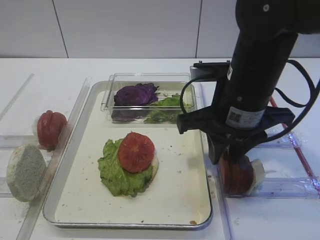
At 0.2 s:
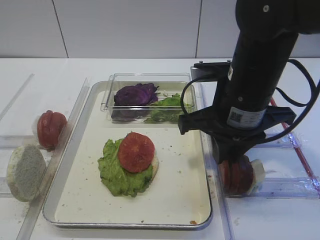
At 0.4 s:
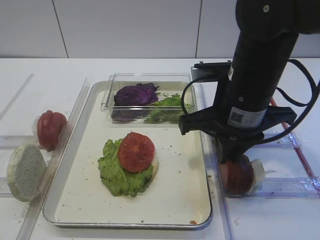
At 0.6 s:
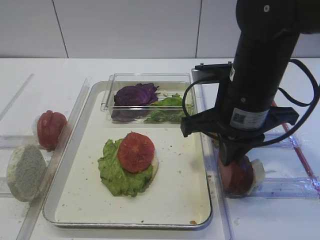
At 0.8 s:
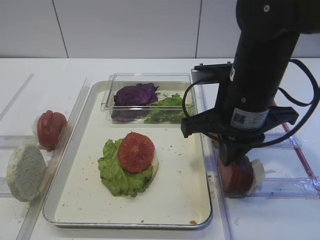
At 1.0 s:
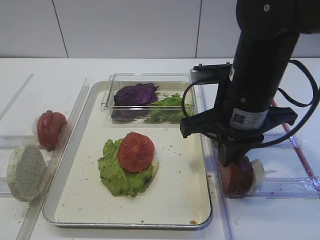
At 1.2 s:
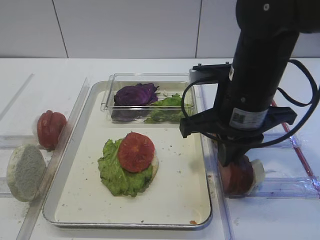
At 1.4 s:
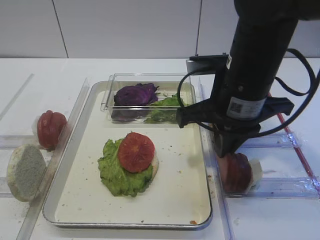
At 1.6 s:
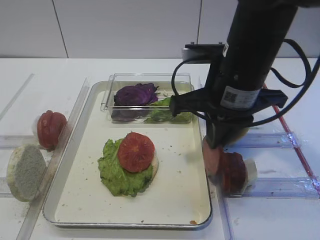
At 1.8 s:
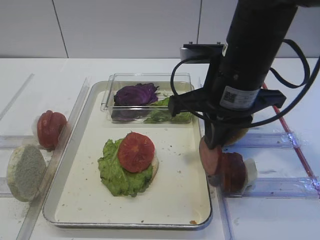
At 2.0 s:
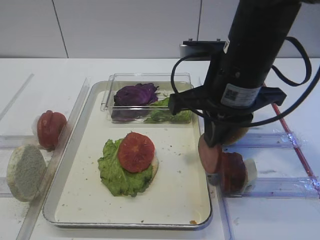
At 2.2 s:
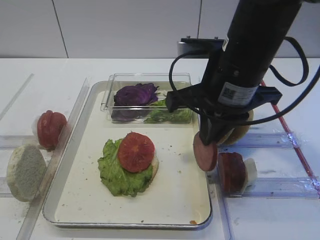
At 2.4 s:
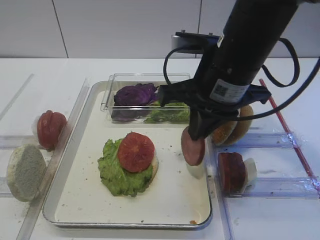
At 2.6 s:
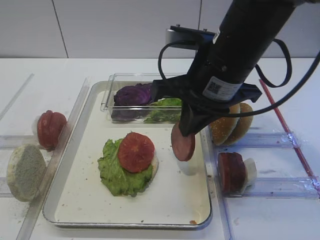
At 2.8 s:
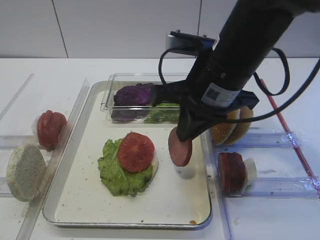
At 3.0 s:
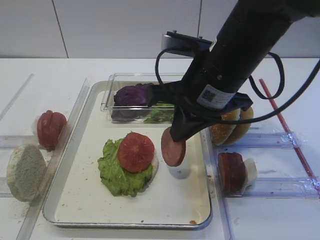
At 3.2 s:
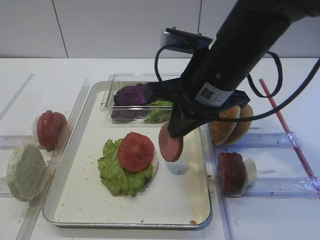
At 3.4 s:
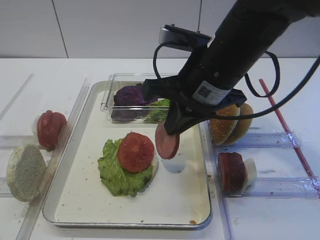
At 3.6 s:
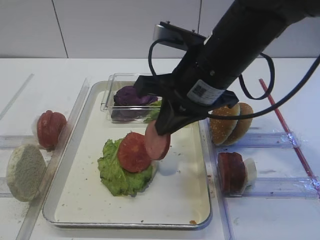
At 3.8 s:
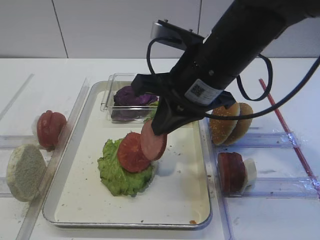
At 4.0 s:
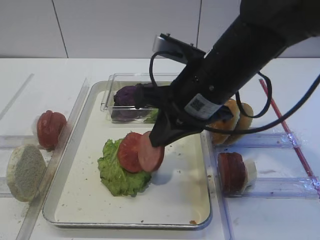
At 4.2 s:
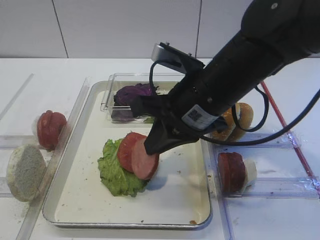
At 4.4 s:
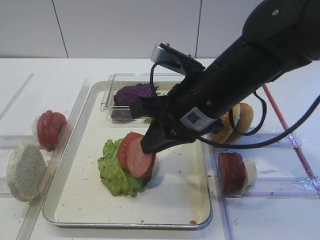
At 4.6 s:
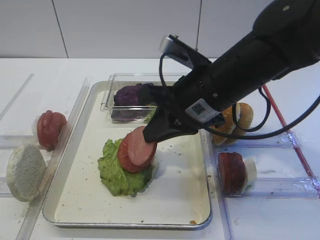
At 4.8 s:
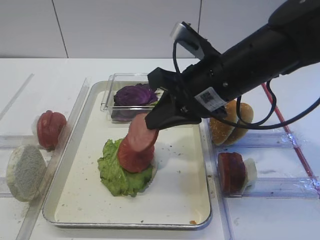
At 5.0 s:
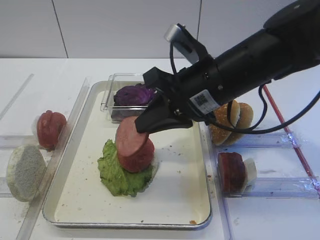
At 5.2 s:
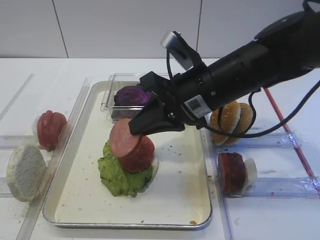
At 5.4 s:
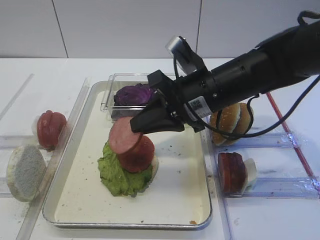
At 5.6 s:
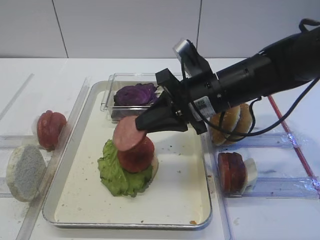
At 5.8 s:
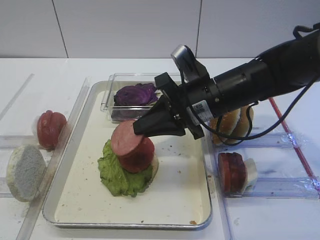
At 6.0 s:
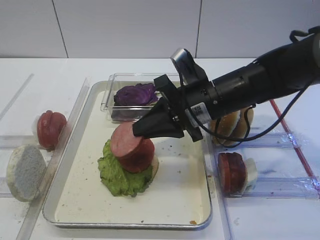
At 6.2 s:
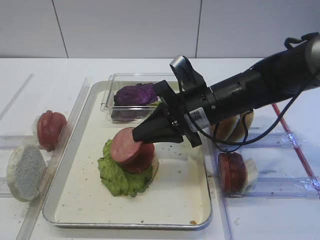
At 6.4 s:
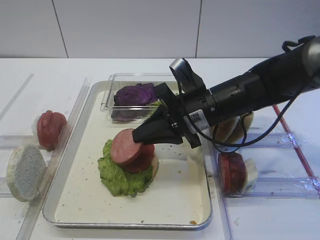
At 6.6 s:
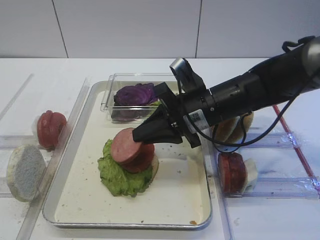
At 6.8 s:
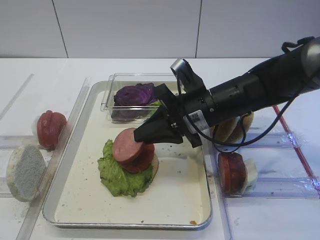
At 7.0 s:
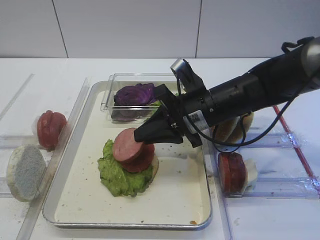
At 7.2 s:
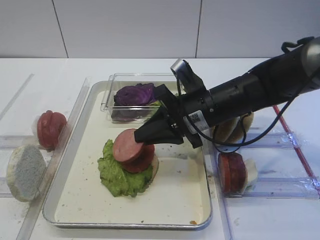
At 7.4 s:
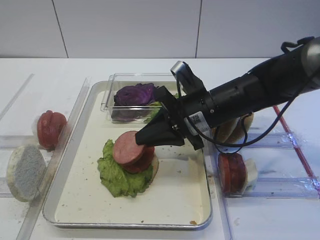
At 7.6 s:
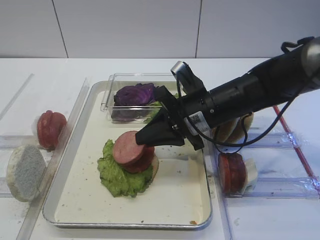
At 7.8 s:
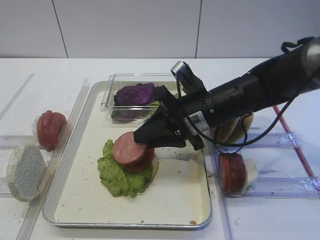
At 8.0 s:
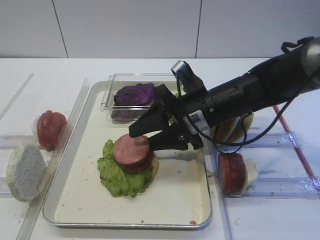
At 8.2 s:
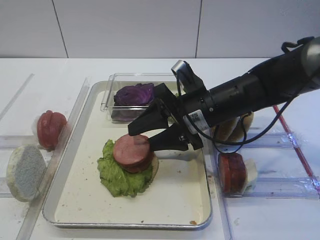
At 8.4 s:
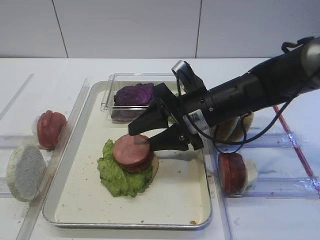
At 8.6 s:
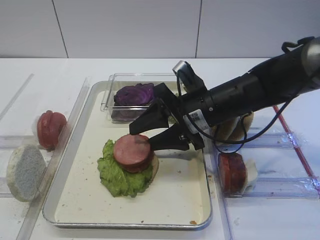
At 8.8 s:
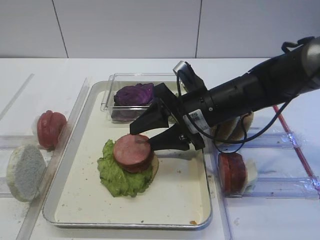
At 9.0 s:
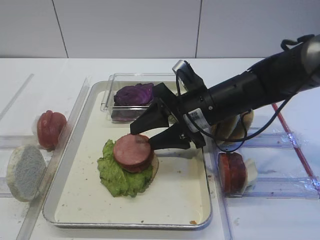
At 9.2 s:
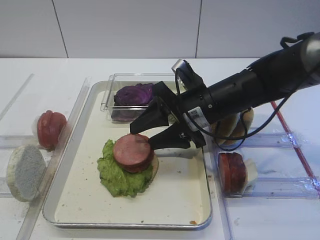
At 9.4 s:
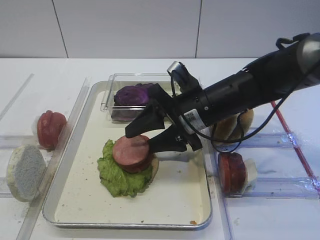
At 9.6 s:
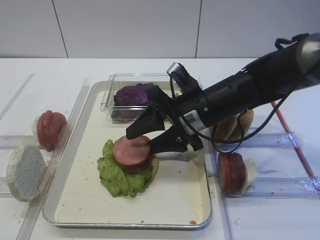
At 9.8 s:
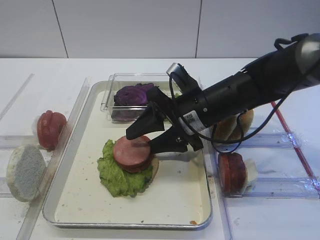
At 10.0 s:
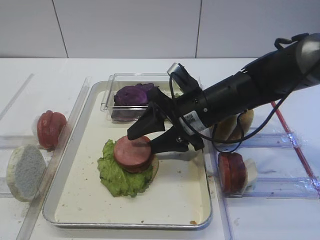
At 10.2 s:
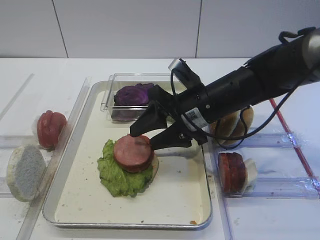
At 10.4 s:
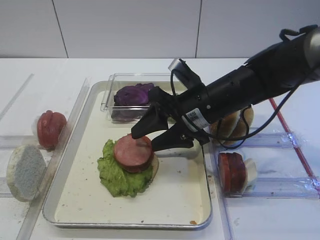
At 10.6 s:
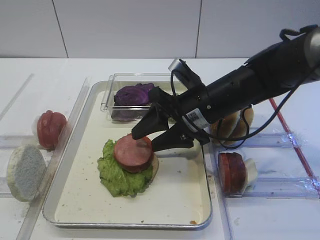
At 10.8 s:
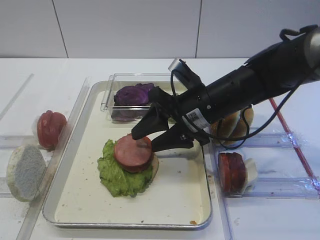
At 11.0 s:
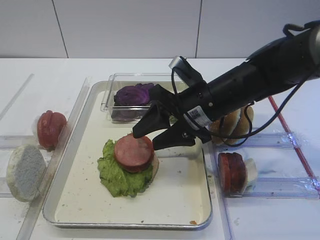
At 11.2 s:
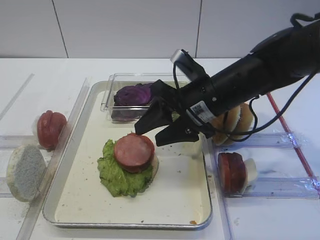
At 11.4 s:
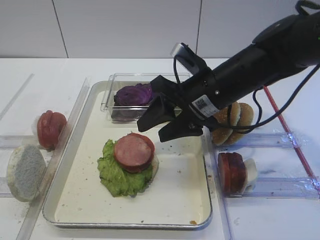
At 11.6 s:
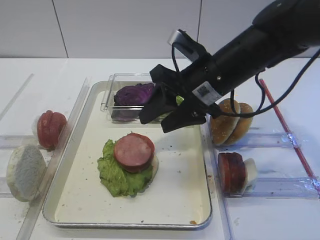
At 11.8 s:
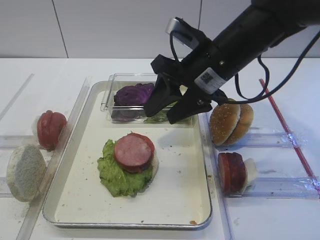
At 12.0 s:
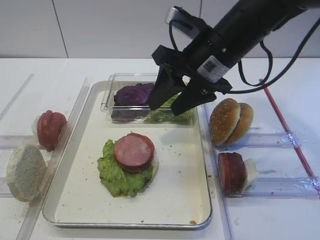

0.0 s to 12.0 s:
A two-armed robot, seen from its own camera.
Step, 1.8 to 11.4 s: Place the cutlet on the tomato slice with the right gripper.
0.0 to 1.6 s: The right gripper closes up.
1.6 to 3.0 s: There are only small adjustments of the grippers.
3.0 to 4.4 s: The grippers make only small movements.
4.4 to 6.0 s: The right gripper goes about 5 cm forward.
6.0 to 7.6 s: The grippers make only small movements.
7.6 to 9.0 s: The right gripper opens up.
9.0 to 10.4 s: The grippers make only small movements.
10.4 to 12.0 s: The right gripper heads upward, covering some 10 cm.

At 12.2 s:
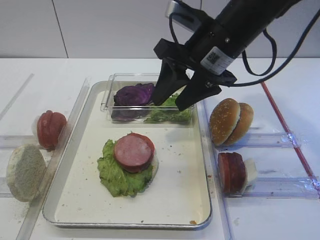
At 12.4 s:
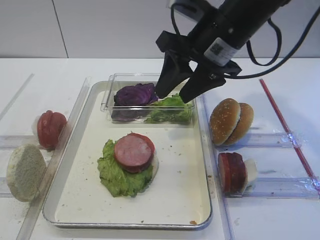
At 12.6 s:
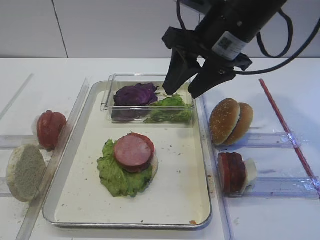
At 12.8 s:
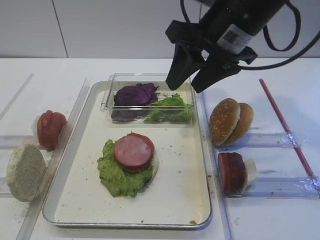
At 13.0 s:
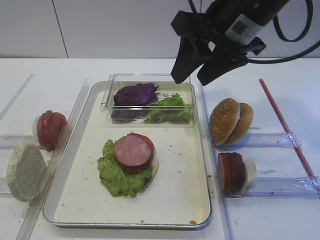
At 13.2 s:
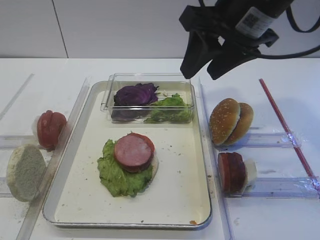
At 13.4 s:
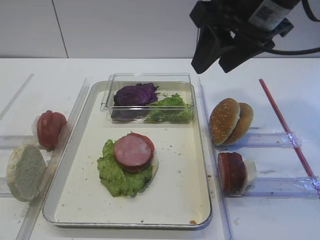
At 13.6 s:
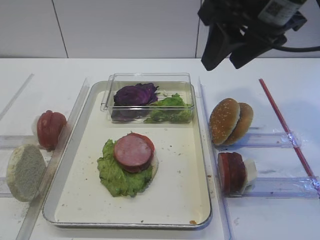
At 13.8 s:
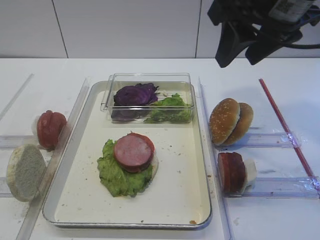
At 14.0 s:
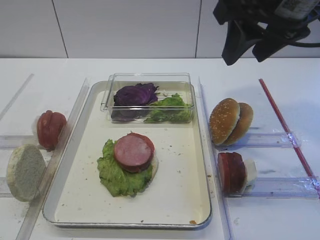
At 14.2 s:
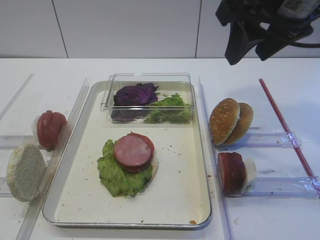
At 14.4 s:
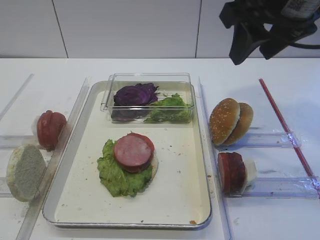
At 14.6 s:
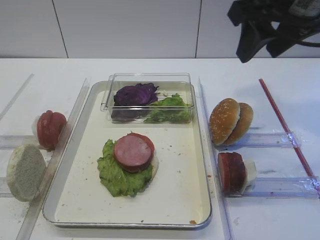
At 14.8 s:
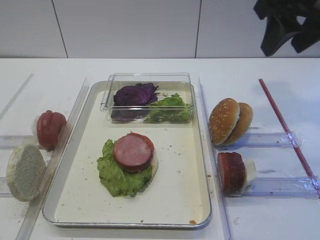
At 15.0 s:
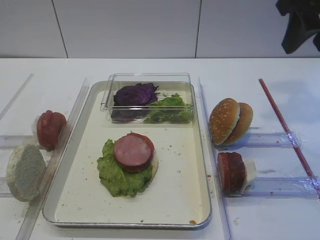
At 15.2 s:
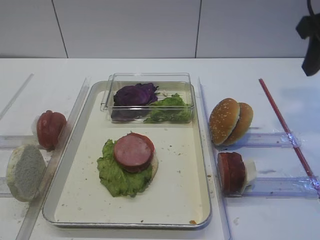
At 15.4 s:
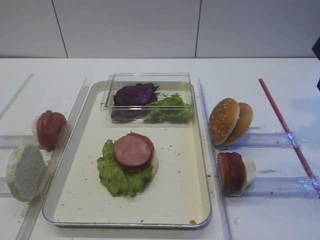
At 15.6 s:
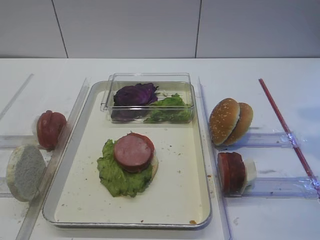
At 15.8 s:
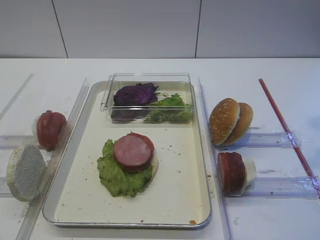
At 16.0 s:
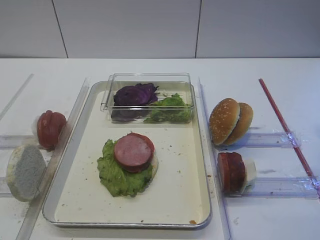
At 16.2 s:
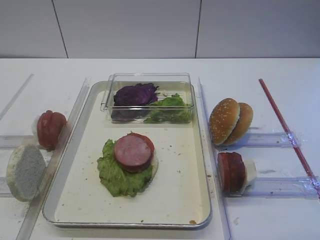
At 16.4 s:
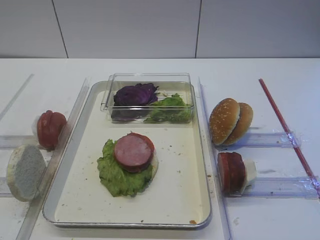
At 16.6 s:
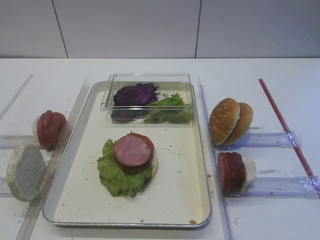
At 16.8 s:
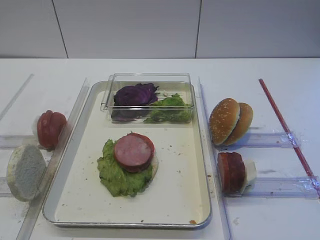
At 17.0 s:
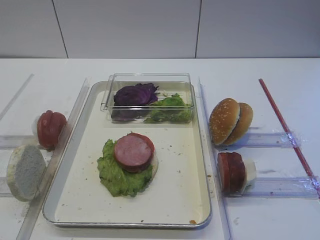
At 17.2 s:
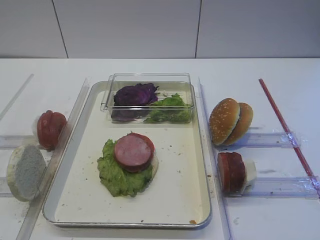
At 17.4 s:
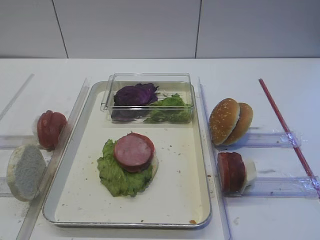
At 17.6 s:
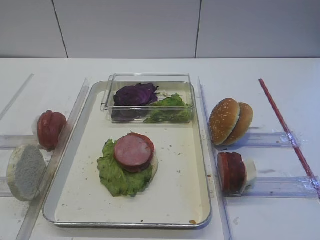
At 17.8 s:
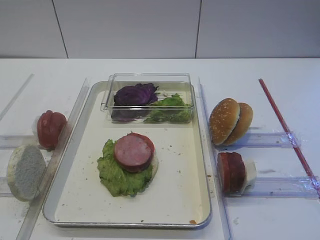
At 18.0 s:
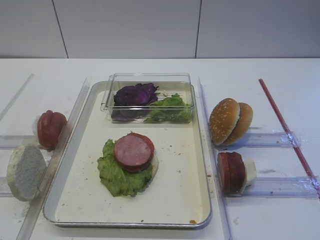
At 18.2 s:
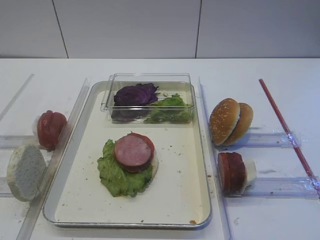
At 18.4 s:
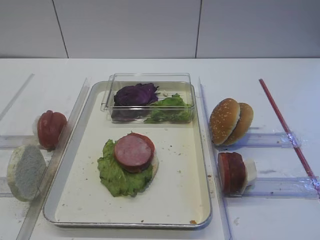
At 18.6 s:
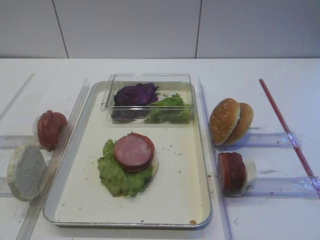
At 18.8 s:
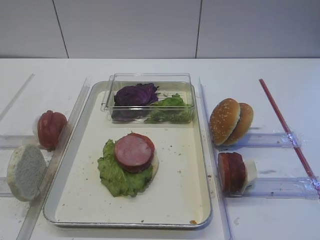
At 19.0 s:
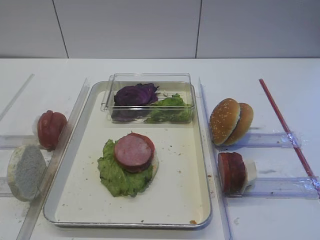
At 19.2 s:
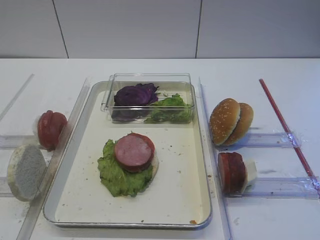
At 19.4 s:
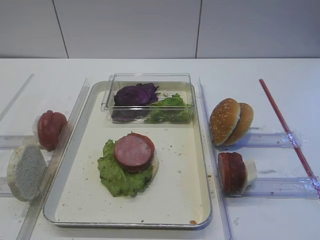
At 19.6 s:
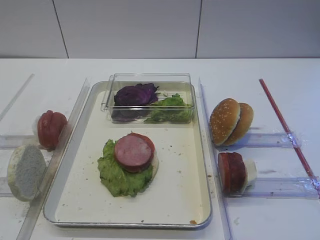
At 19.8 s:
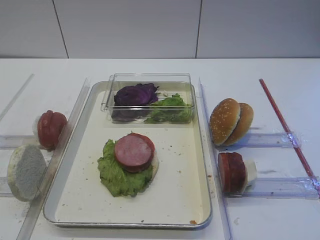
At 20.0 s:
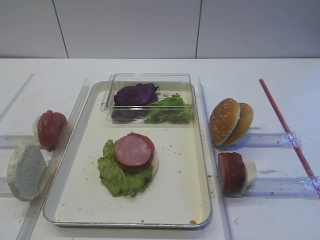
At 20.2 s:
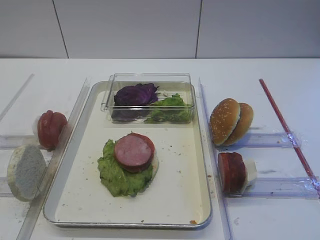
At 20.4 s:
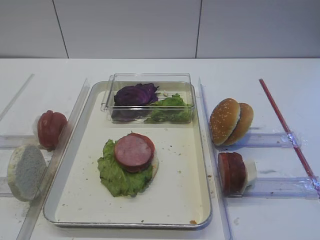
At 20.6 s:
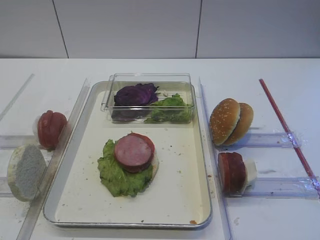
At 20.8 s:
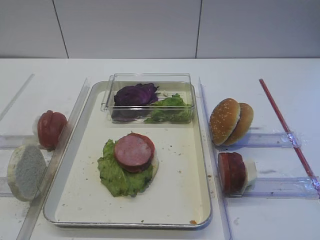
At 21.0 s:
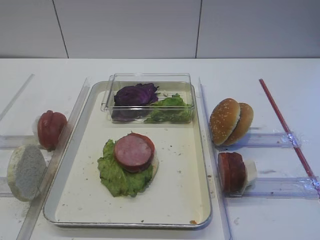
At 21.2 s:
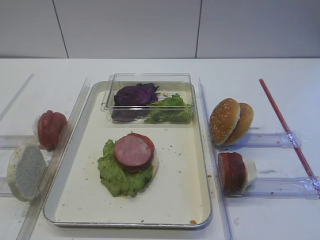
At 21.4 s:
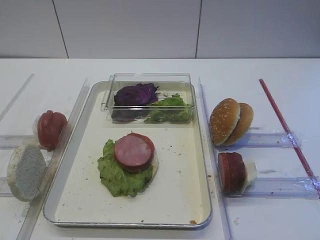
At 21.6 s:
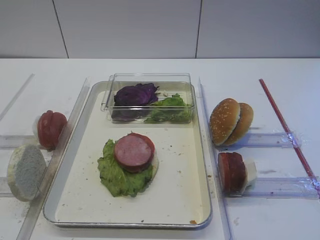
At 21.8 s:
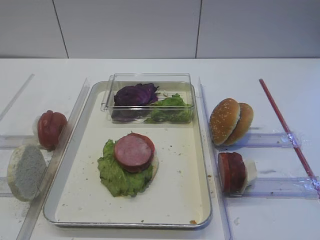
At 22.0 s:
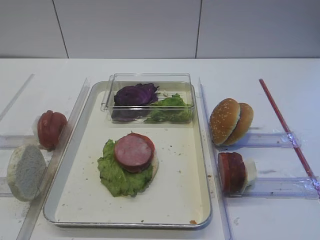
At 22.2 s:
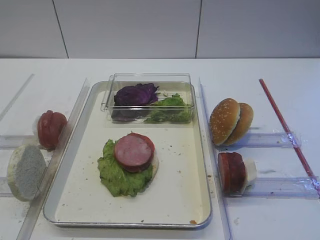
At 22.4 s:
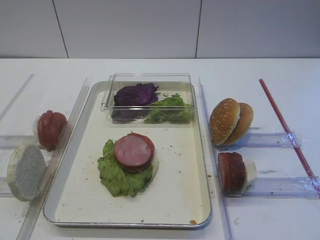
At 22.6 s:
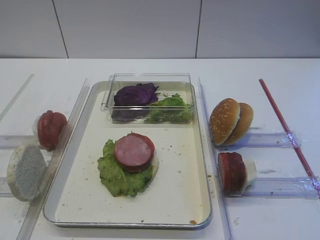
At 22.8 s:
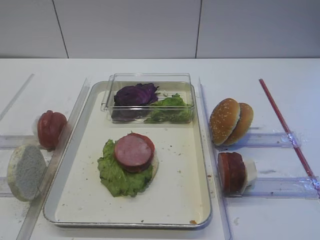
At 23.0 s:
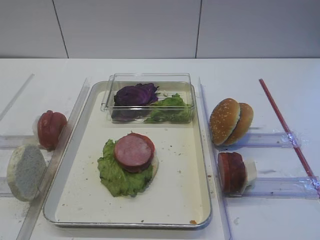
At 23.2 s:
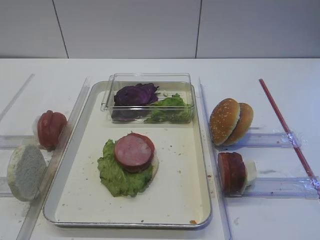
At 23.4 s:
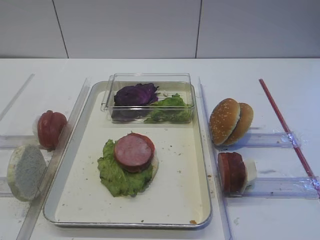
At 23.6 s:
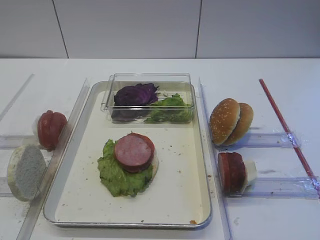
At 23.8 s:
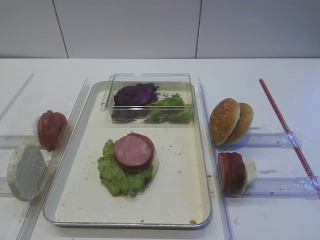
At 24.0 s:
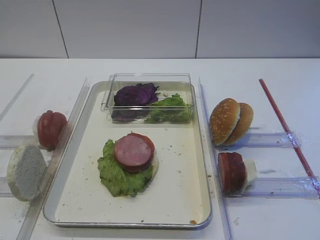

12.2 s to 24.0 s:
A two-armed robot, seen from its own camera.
12.2 to 13.6 s: The right gripper moves upward, some 10 cm.
13.6 to 15.2 s: The right gripper shifts some 10 cm to the right.
15.2 to 16.6 s: The right gripper travels backward by approximately 20 cm.
18.2 to 24.0 s: Neither gripper changes place.
